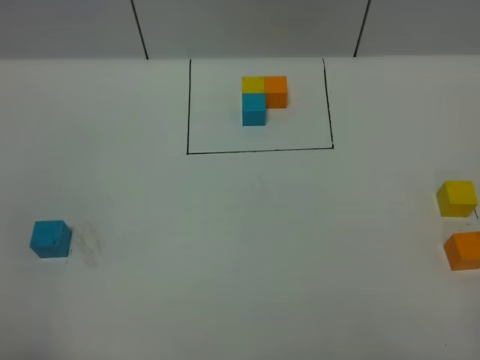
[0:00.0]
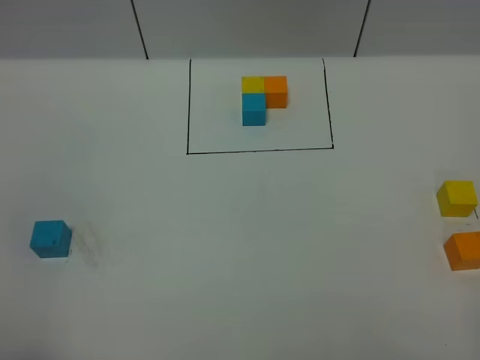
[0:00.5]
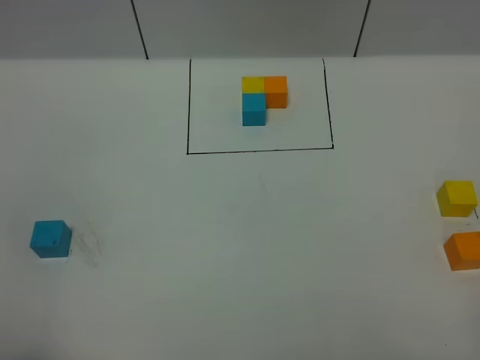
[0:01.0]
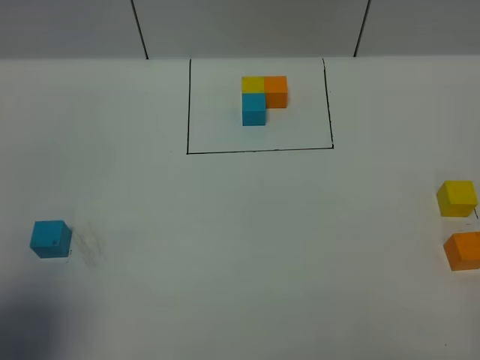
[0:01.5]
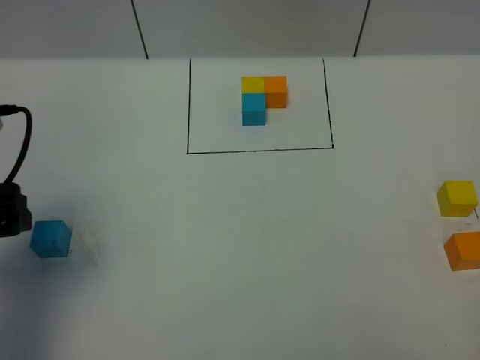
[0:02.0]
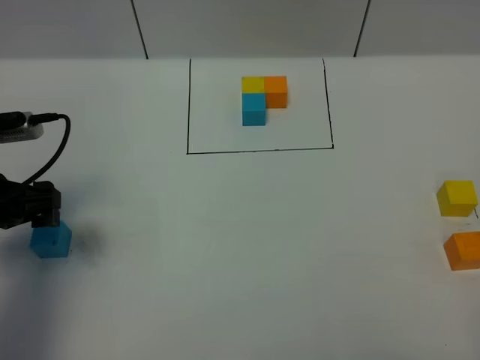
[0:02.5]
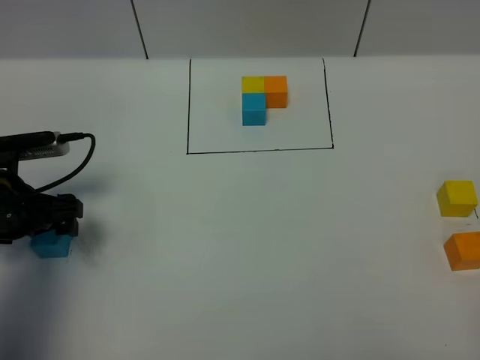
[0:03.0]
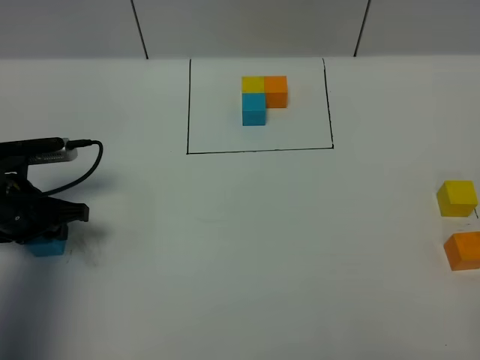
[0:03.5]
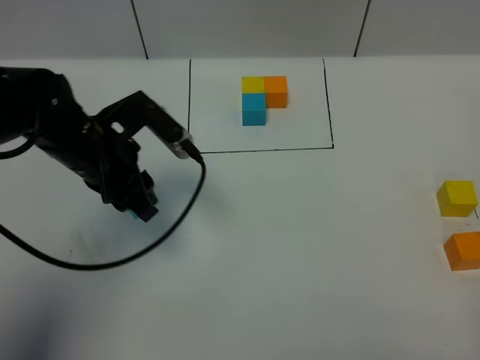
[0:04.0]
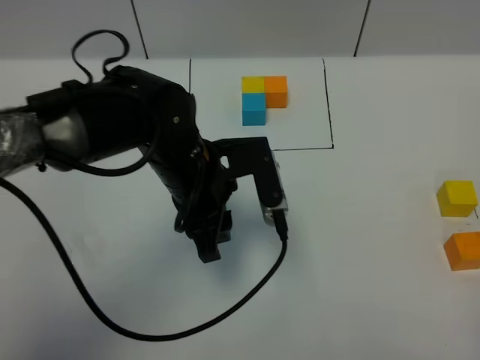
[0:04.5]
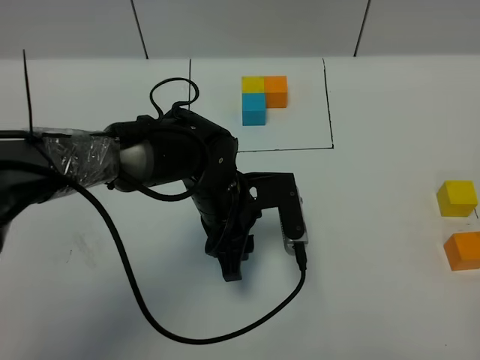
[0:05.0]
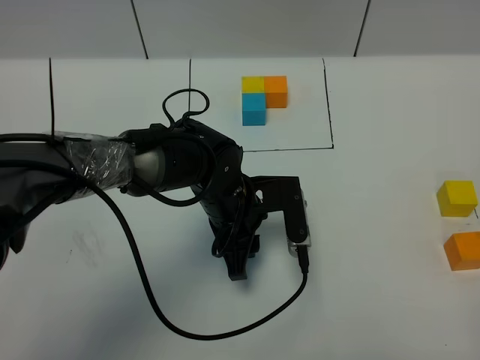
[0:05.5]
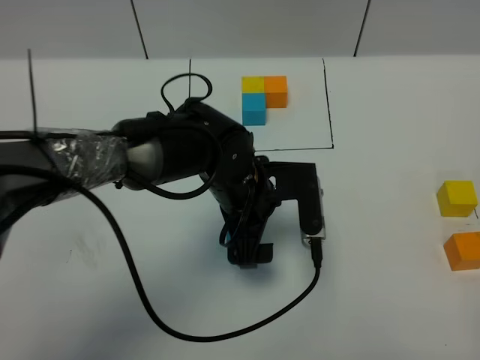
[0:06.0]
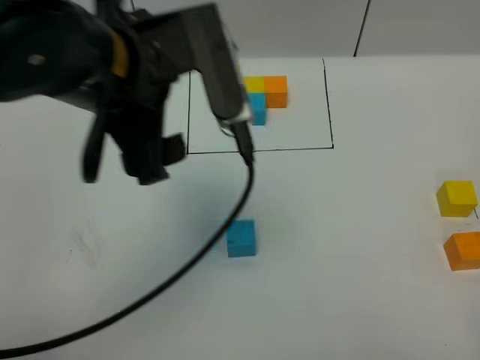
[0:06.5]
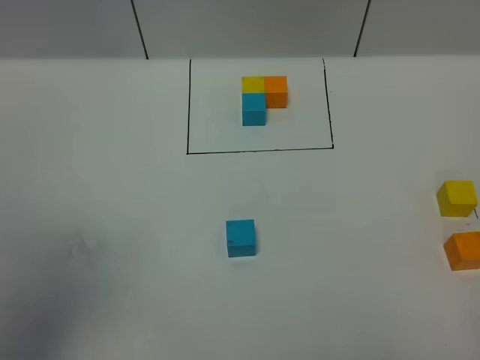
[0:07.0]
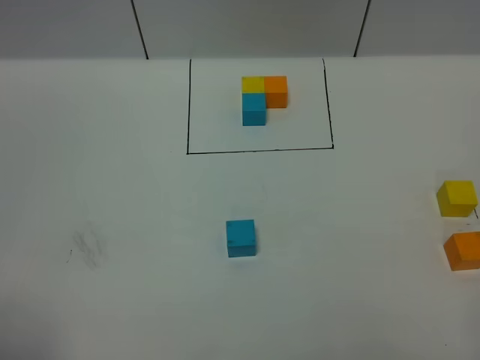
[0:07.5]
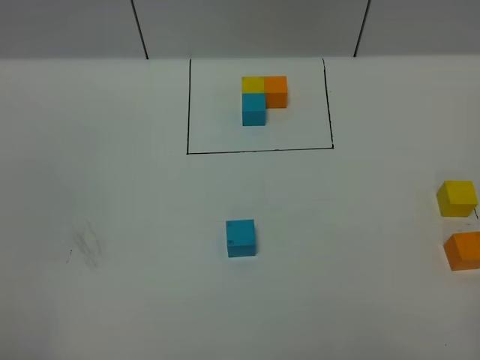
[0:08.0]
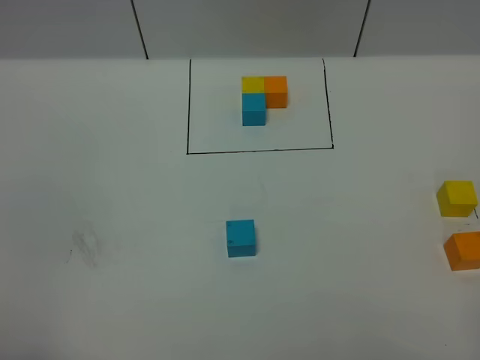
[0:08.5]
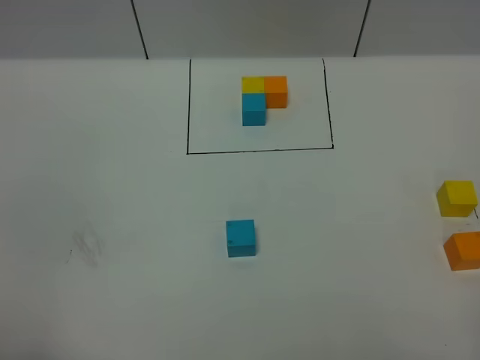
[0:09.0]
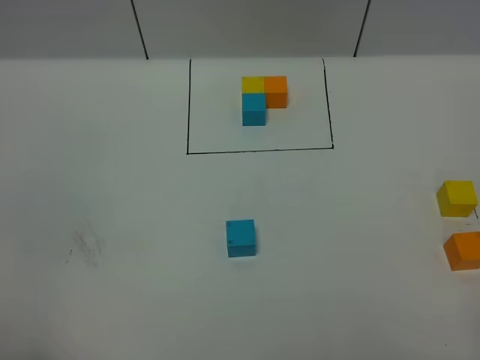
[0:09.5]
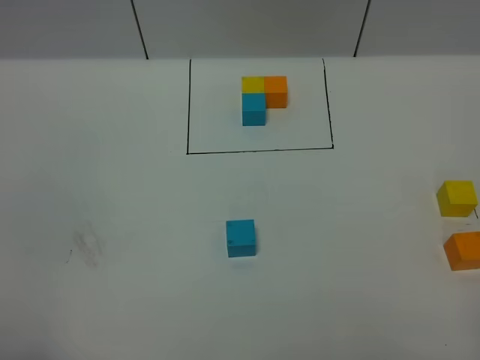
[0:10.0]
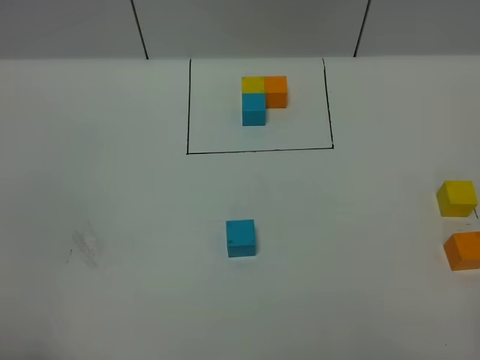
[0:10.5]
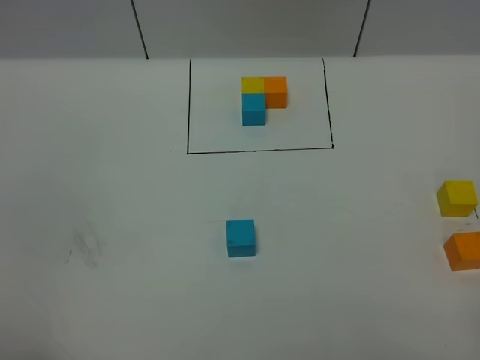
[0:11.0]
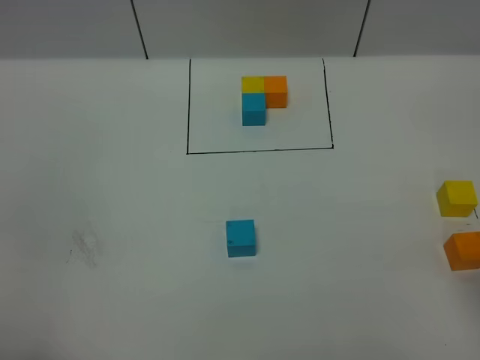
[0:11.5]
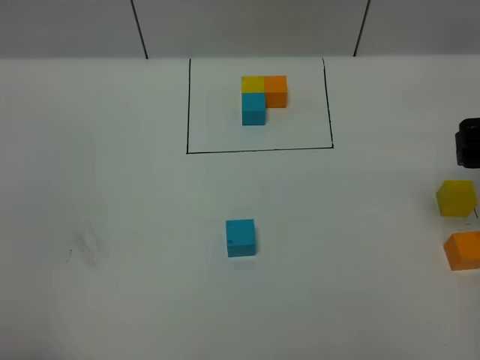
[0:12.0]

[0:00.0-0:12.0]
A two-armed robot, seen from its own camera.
Task of the whole recording: According to the building block template in front, assemble the scattered blocks together.
Step, 0:02.0 to 0:06.0: Put the blue cube in the center of the table.
0:00.0 to 0:02.0: The left gripper goes approximately 20 cm forward.
0:02.0 to 0:04.0: The left gripper shifts about 15 cm to the right, forward and downward, and closes up.
0:04.0 to 0:06.0: The left gripper is displaced to the right by about 15 cm, and opens.
0:06.0 to 0:08.0: The left gripper moves backward, to the left and upward, about 50 cm.
0:10.0 to 0:12.0: The right gripper moves forward, some 30 cm, and opens.

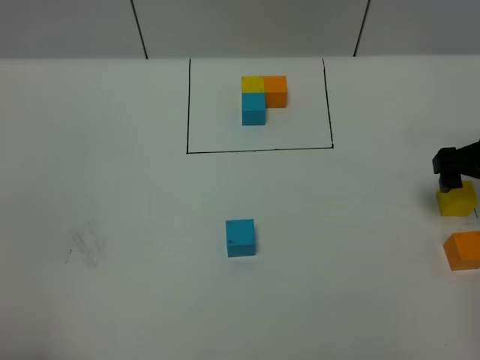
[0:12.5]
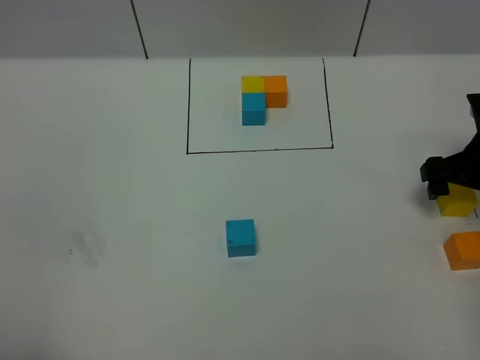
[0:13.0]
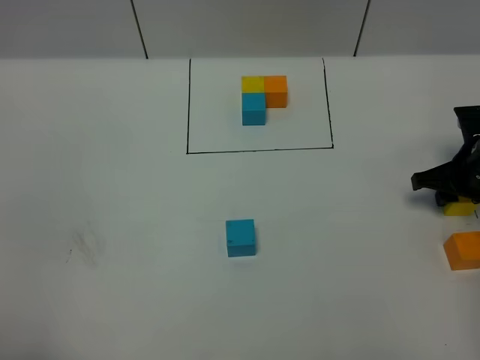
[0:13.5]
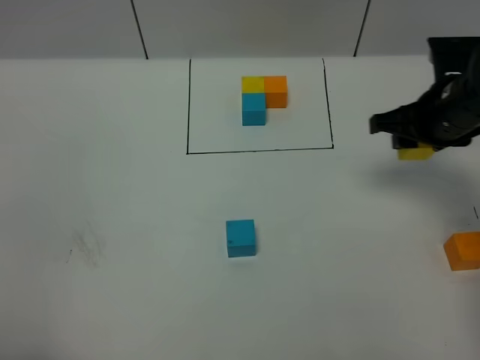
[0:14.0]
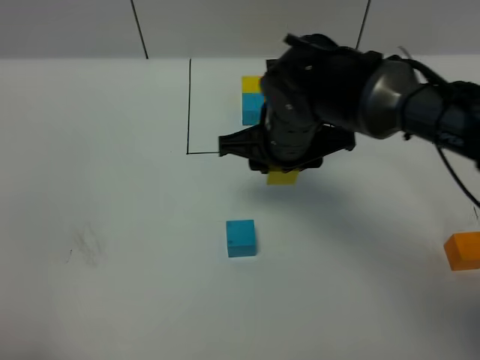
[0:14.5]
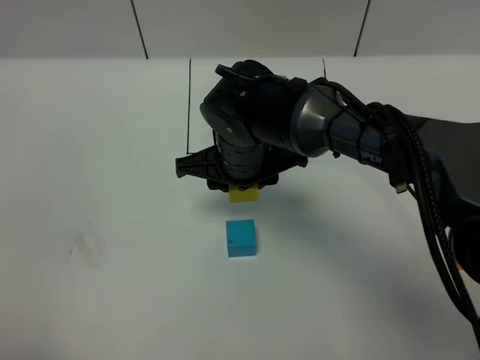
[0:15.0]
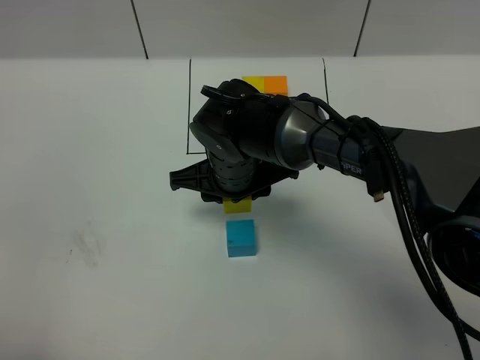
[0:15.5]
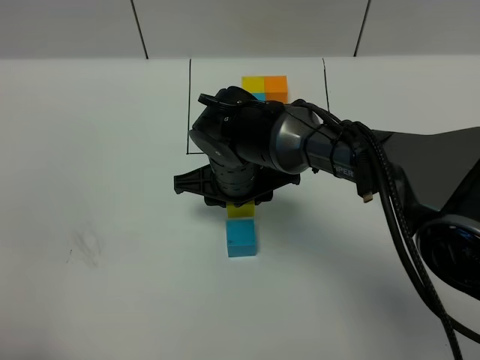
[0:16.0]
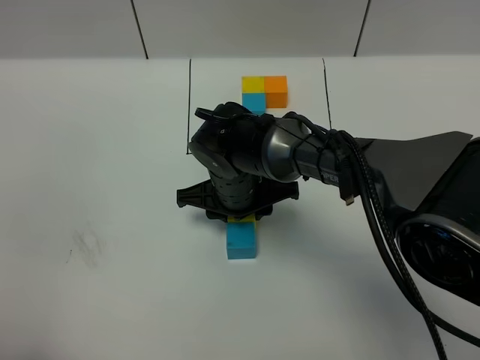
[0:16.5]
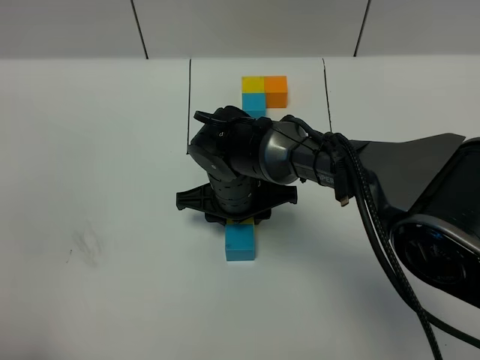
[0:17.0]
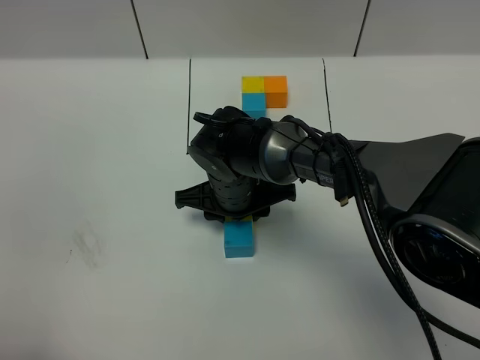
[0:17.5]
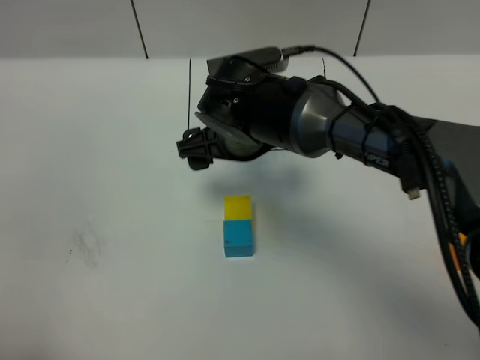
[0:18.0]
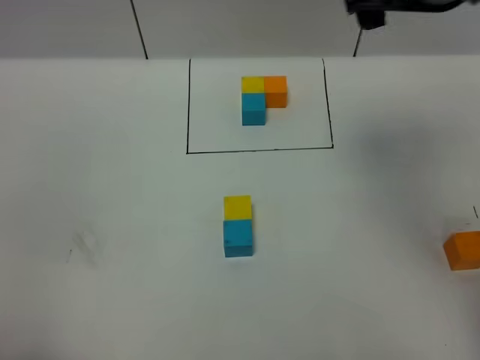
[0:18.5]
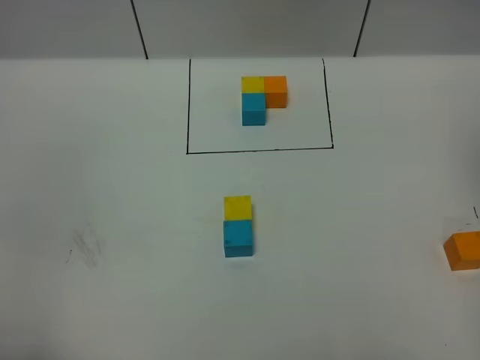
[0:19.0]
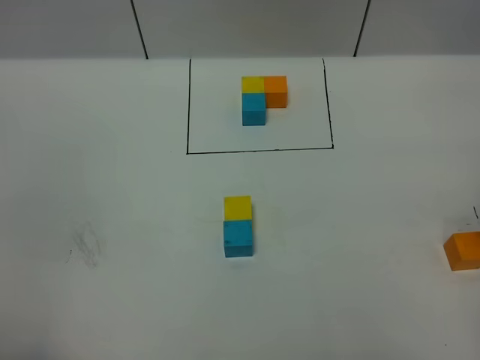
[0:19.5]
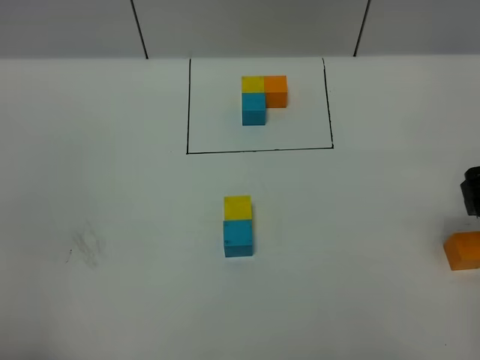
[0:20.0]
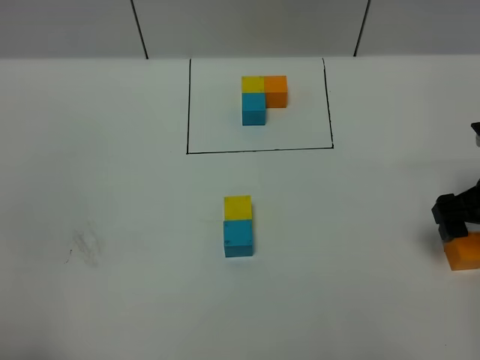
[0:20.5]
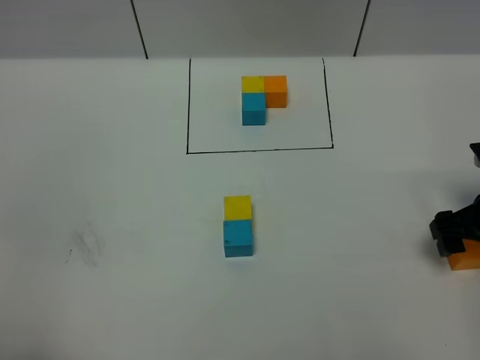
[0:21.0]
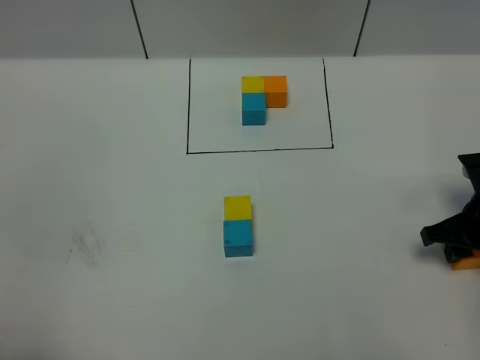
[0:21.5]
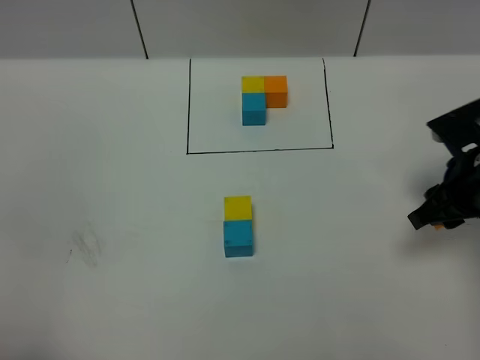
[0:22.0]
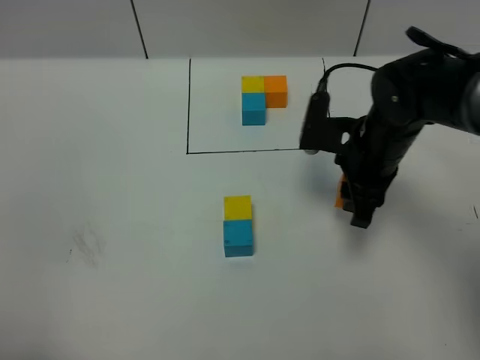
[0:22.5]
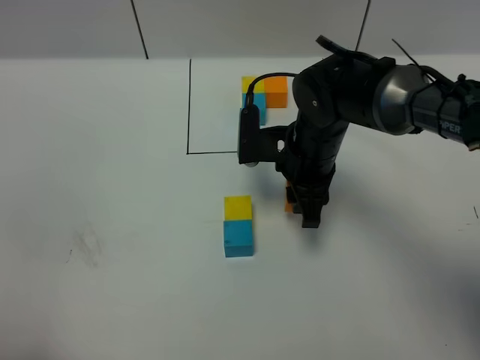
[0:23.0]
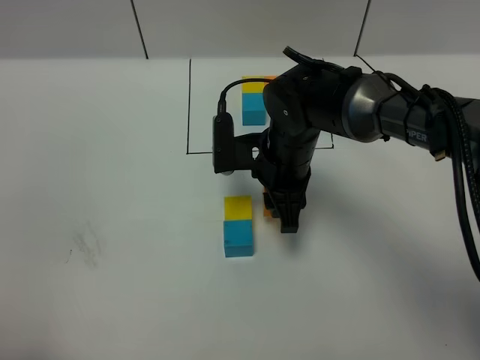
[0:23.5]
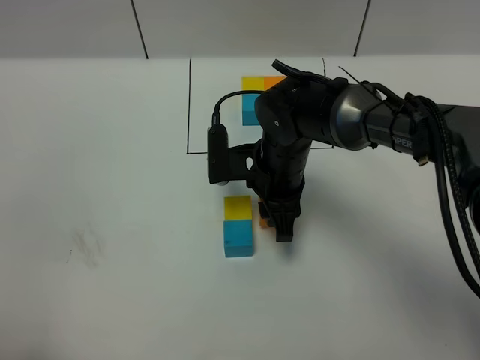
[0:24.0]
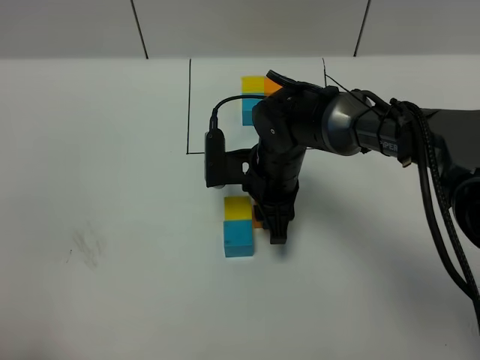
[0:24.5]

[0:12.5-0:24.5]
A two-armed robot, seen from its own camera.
Task of the whole recording: According to the building block template in front, assemble the scattered blocks together.
Step, 0:12.5 to 0:17.5: Put the yellow cube on the behind of the blue cube.
0:12.5 to 0:14.5: The right gripper is displaced to the left by roughly 30 cm, and closes its fingers.
0:14.5 to 0:16.5: The right gripper is displaced downward and to the left by some 10 cm.
0:16.5 to 0:18.5: The right gripper goes roughly 35 cm upward and to the right, and opens.
0:18.5 to 0:20.5: The right gripper goes some 25 cm downward and to the right.
0:20.5 to 0:22.5: The right gripper heads to the left and forward, covering about 15 cm, and closes.
0:22.5 to 0:24.5: The right gripper shifts some 10 cm to the left and downward.

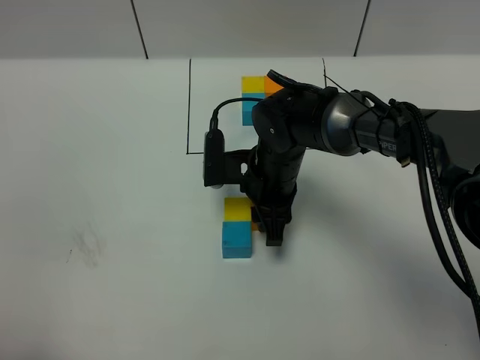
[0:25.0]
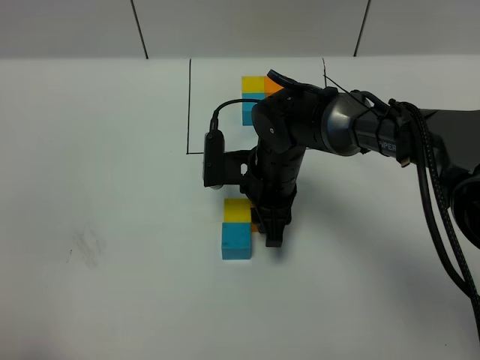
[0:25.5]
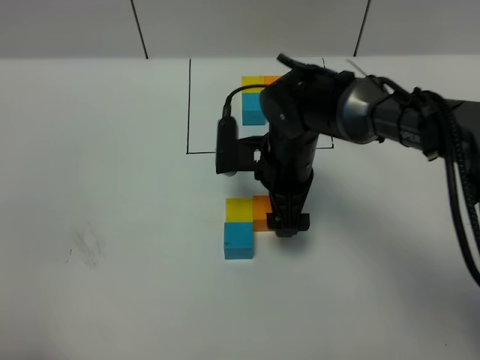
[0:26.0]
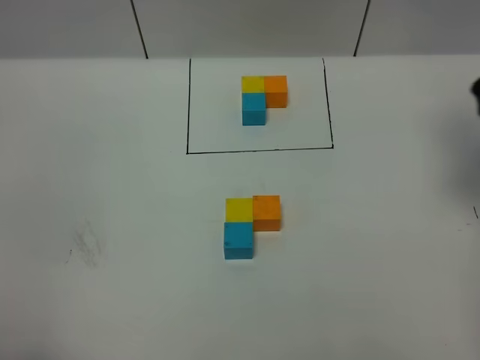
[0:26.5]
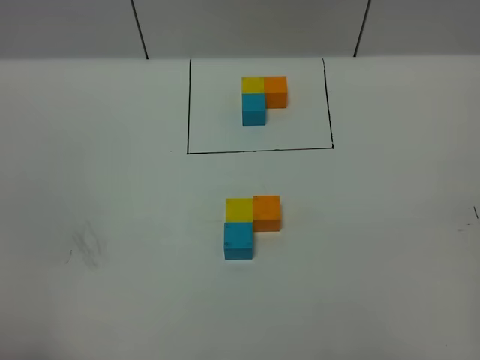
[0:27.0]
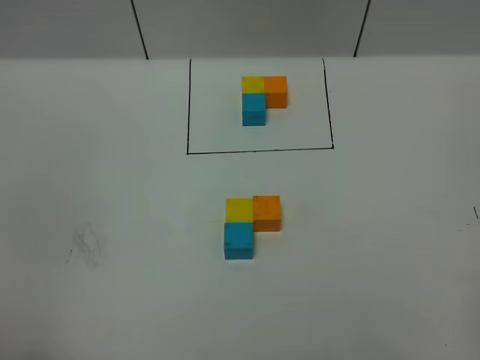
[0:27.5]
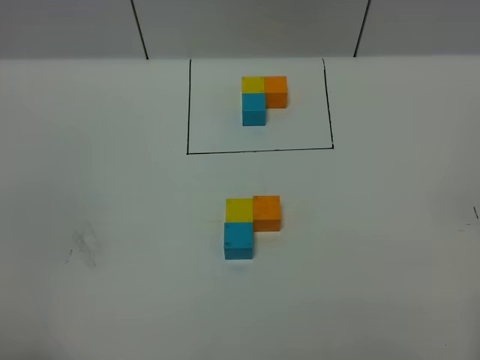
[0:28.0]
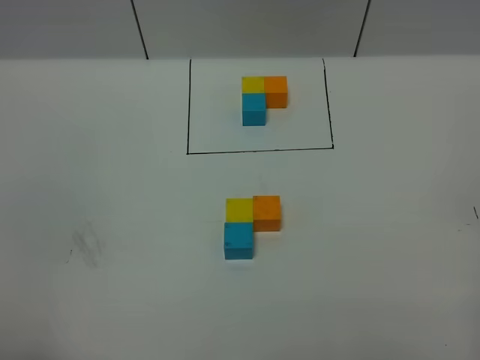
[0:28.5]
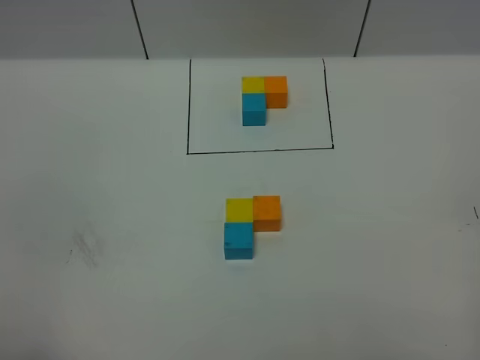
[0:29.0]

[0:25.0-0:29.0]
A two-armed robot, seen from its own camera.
Task of the whole recording: According to the building block template in front, assemble the scattered blocks together.
0:25.0 to 0:27.0: The right gripper is displaced to the right, upward and backward by some 50 cm, and opens.
